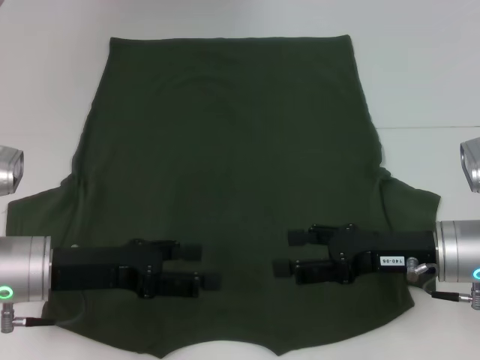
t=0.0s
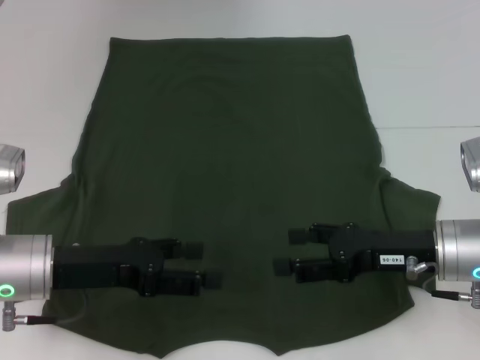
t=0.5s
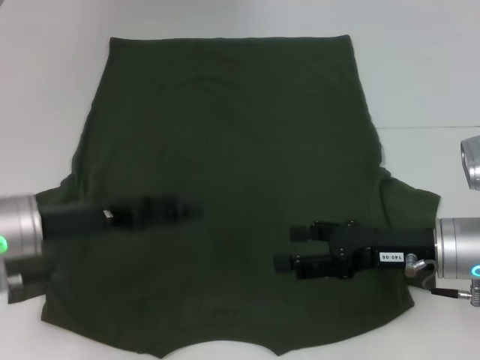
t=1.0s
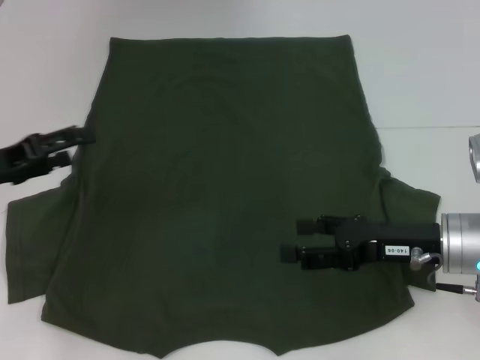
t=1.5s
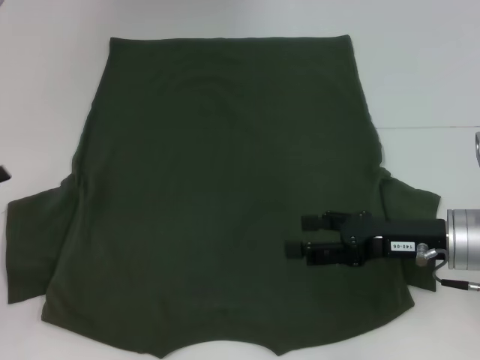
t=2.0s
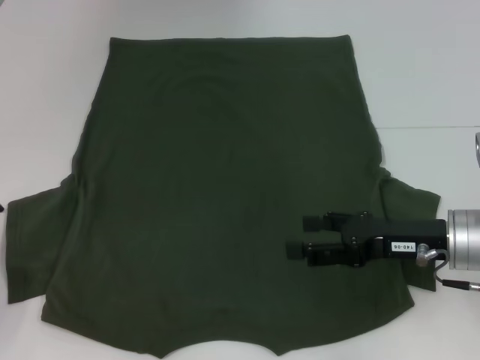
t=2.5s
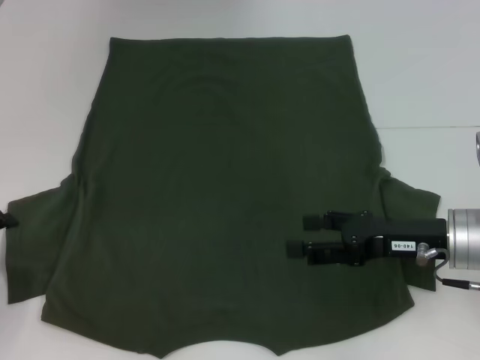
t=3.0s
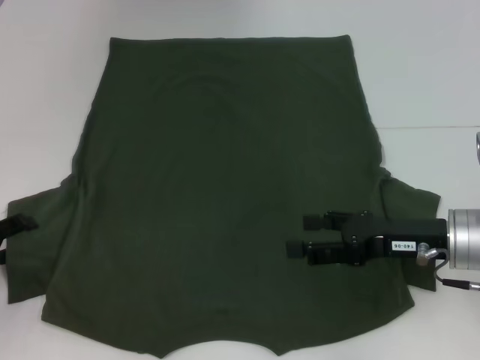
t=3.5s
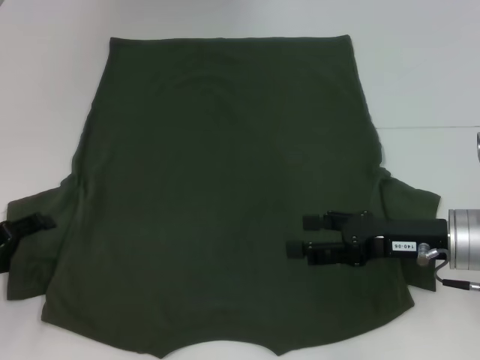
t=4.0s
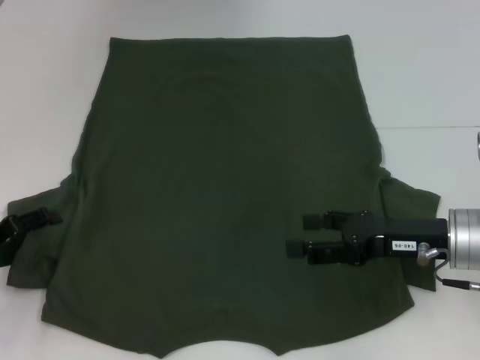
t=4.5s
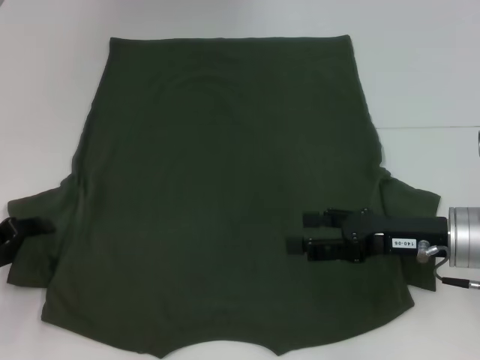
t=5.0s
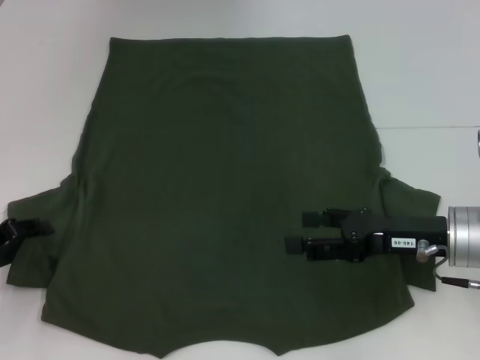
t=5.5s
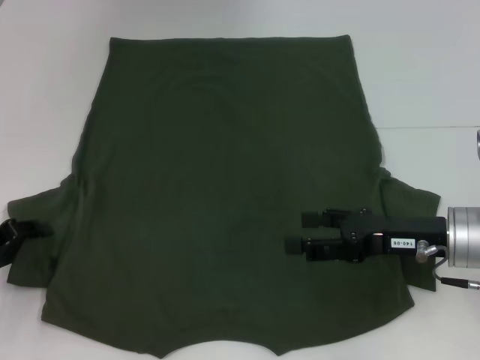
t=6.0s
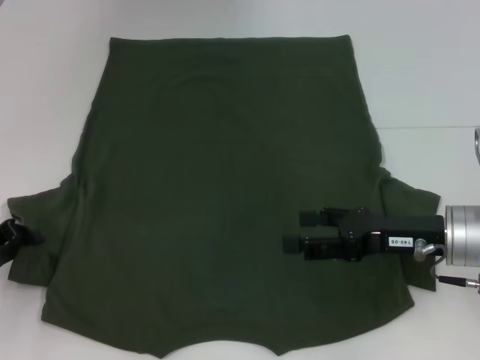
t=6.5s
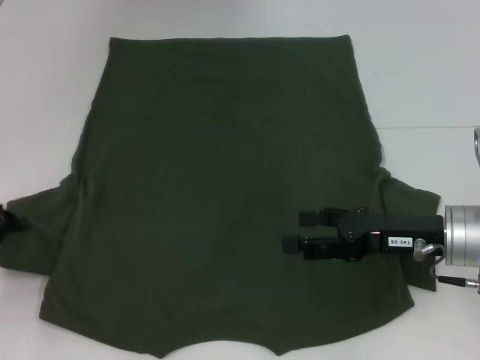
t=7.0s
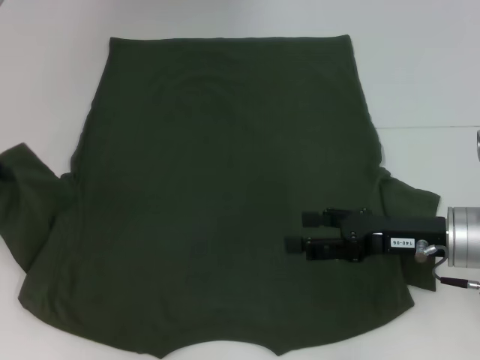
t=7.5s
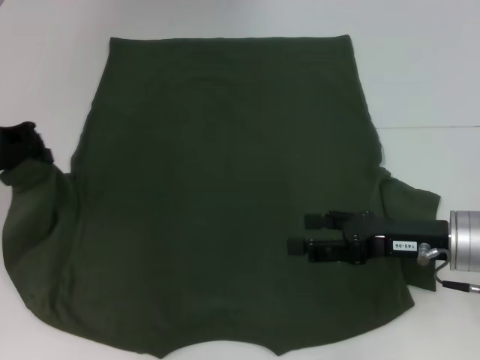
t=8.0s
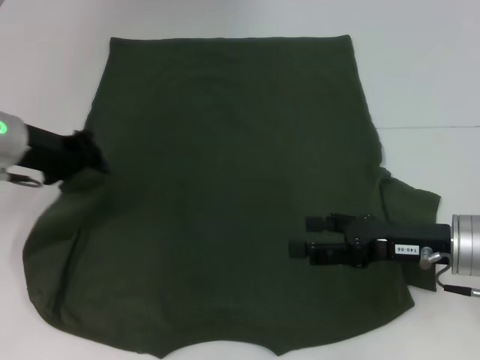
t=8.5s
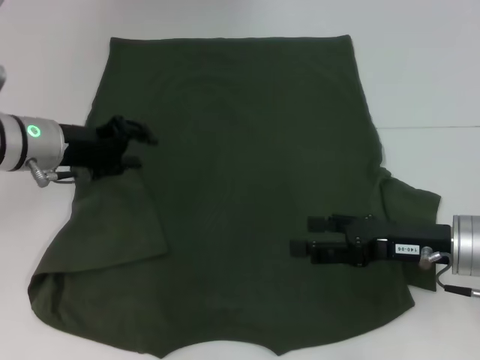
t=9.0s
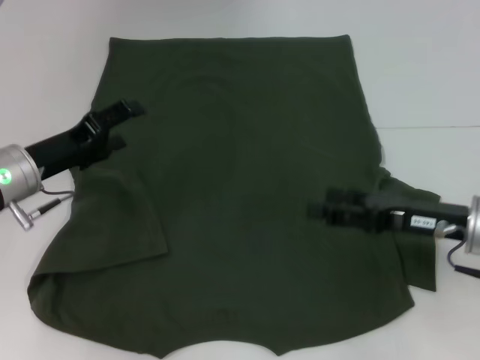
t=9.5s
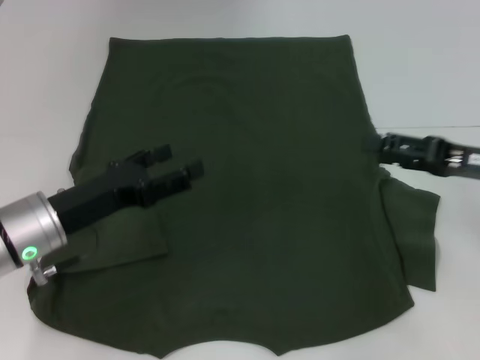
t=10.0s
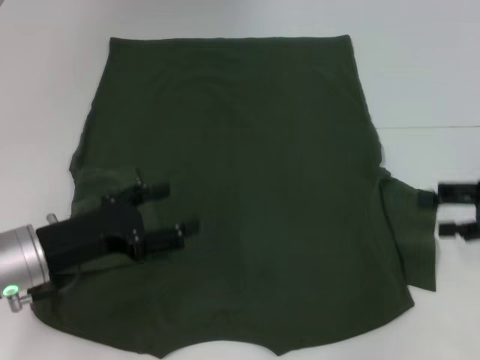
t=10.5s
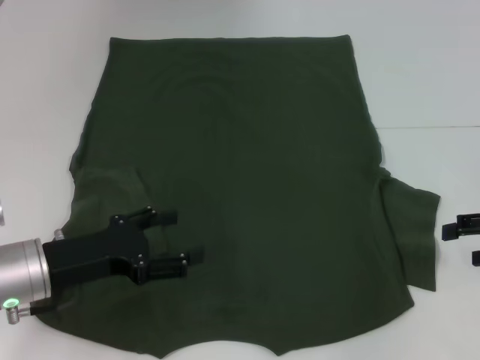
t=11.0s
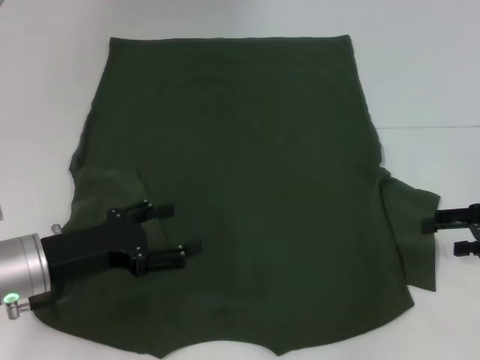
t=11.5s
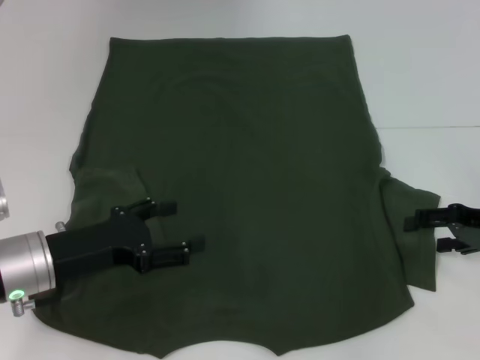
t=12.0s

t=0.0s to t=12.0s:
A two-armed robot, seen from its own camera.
Step, t=0.0s to t=9.0s: Fold the bottom left sleeve with your left hand.
t=0.0s to t=2.0s: The left gripper moves to the left, approximately 15 cm.
t=2.0s to t=4.0s: The left gripper shifts by about 5 cm.
t=6.0s to t=8.0s: The left gripper travels upward and forward by approximately 15 cm, and closes its fingers.
t=8.0s to t=10.0s: The right gripper moves to the right, approximately 5 cm. Meanwhile the left gripper shifts some 15 cm to the right, downward and backward, and opens.
t=10.0s to t=12.0s: The right gripper moves some 5 cm.

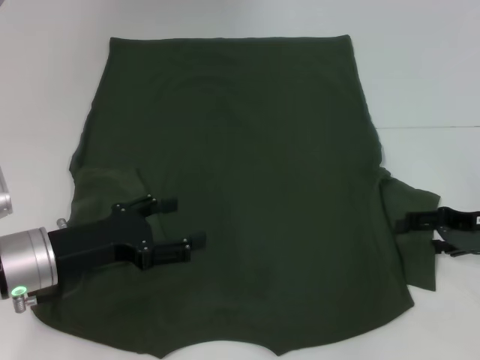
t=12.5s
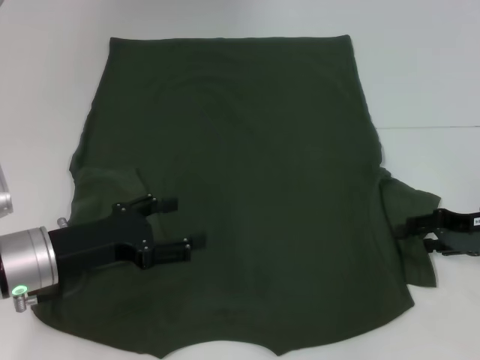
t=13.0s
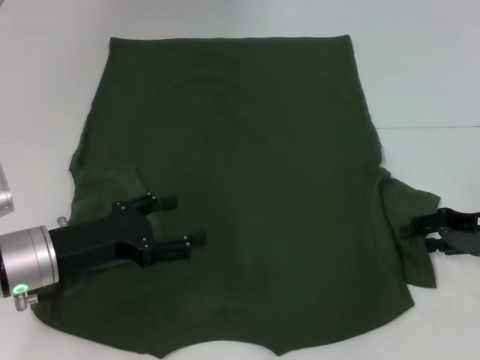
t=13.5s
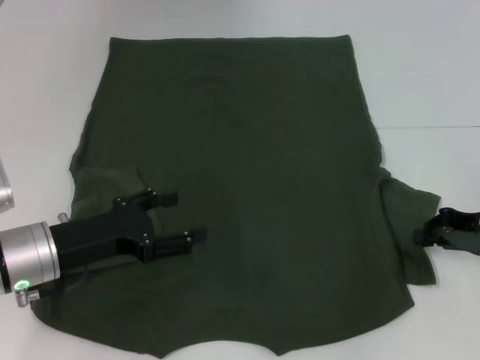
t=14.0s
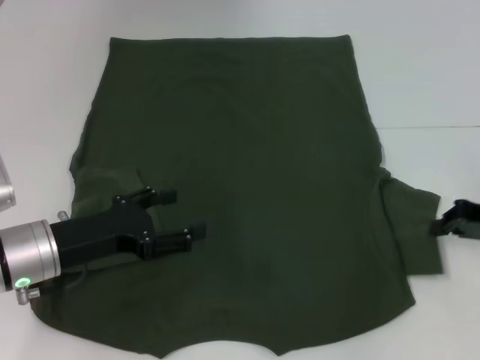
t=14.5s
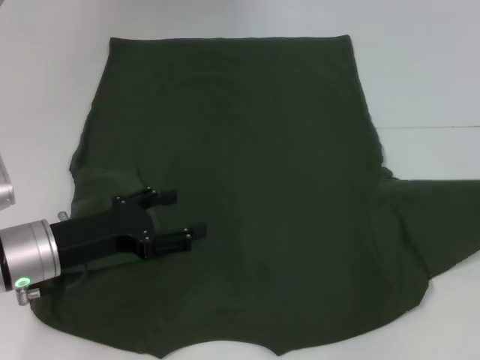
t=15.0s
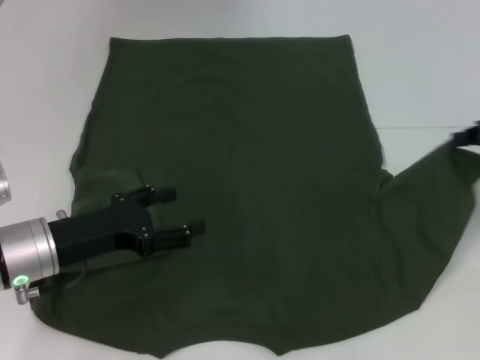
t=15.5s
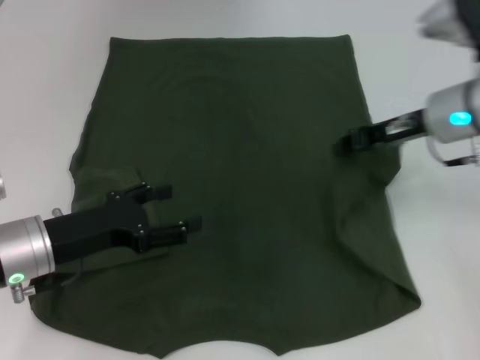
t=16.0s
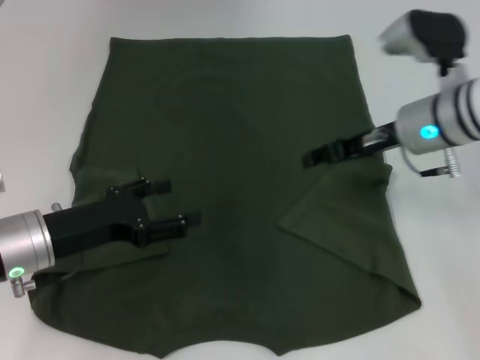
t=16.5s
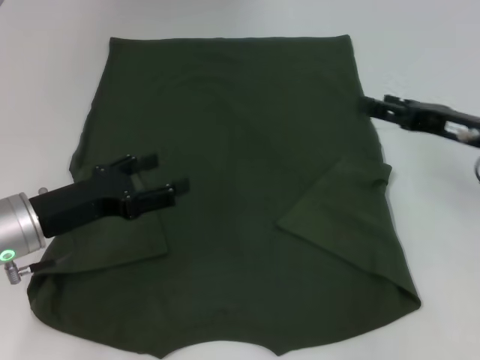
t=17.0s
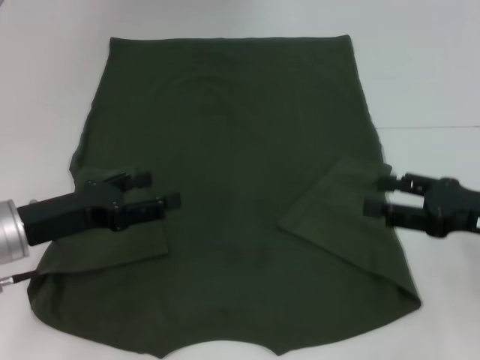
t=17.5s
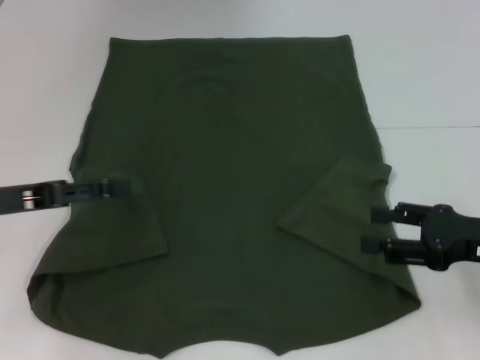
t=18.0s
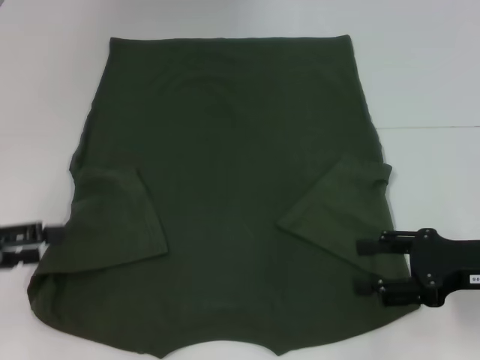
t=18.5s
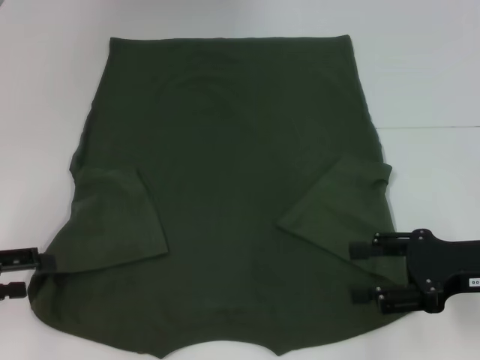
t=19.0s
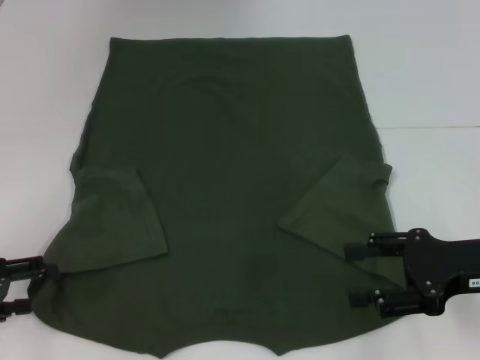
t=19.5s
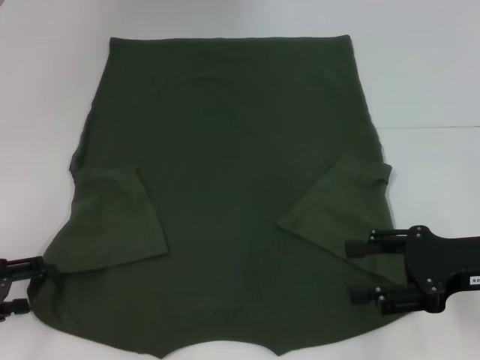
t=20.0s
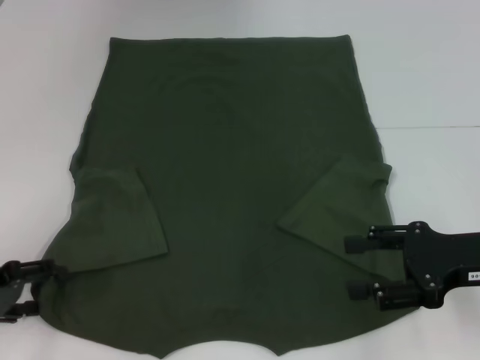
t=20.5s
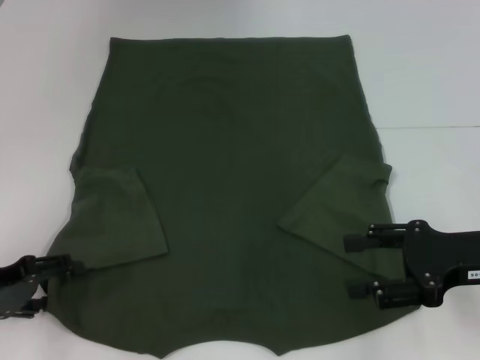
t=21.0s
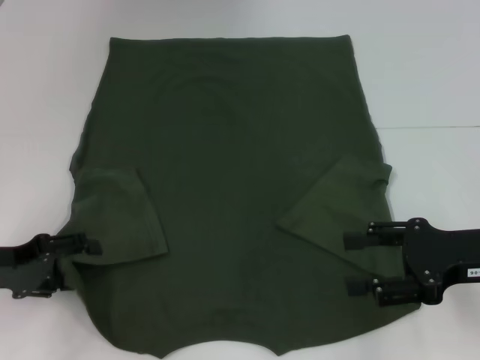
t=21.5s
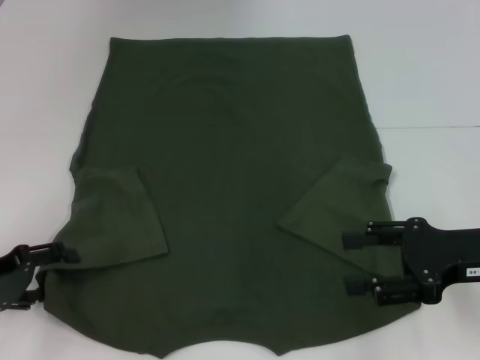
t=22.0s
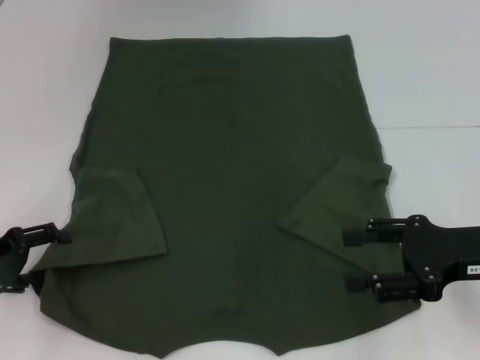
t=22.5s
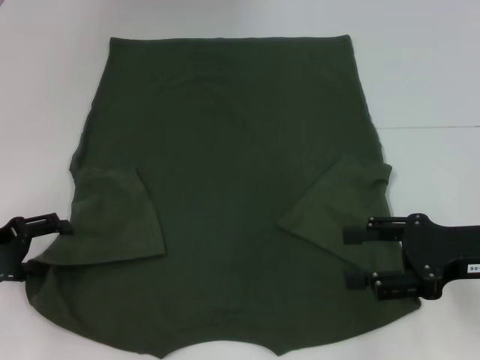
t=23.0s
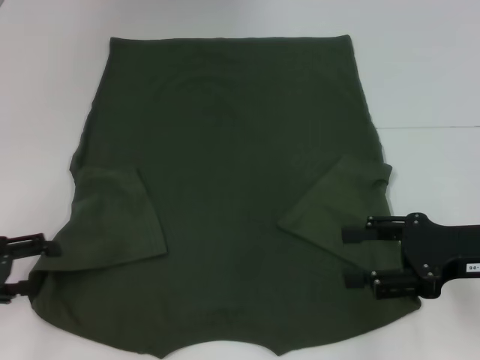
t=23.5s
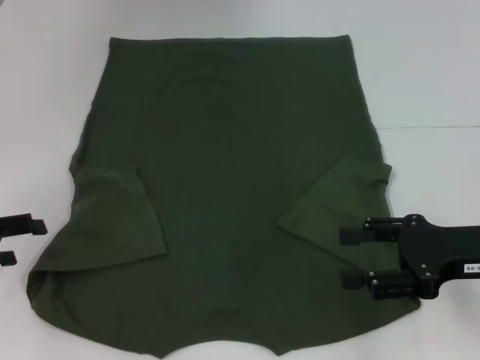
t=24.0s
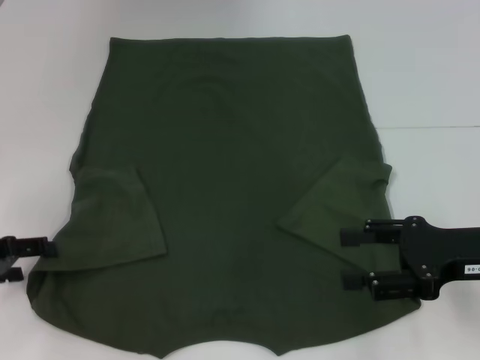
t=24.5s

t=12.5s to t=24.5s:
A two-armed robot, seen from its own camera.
Step, t=12.5s to t=16.0s: Fold the bottom right sleeve with your right hand.
t=12.5s to t=14.5s: The right gripper closes.
t=14.5s to t=16.5s: The right gripper shifts about 15 cm to the left and forward, and opens.
t=16.5s to t=18.5s: The left gripper is displaced to the left and upward by roughly 15 cm, while the right gripper moves backward and to the right, approximately 15 cm, and opens.
t=18.5s to t=20.5s: The left gripper moves downward, approximately 5 cm.
t=20.5s to t=22.5s: There are only small adjustments of the grippers.

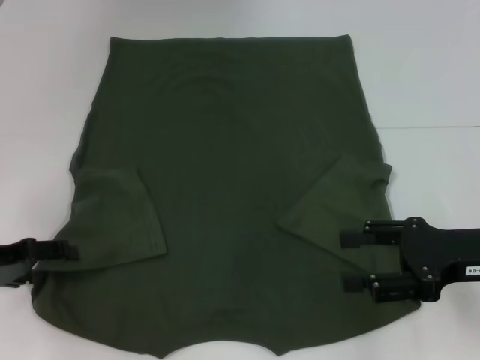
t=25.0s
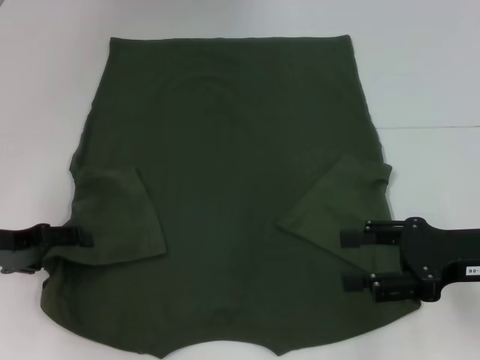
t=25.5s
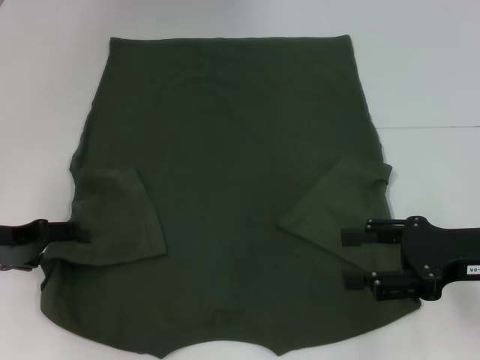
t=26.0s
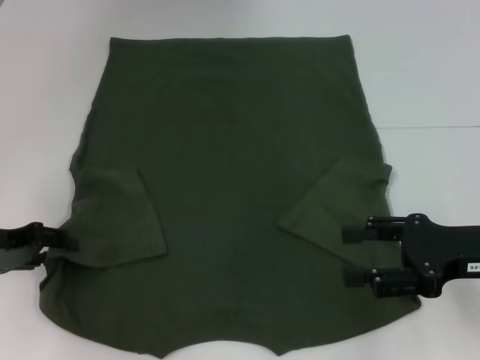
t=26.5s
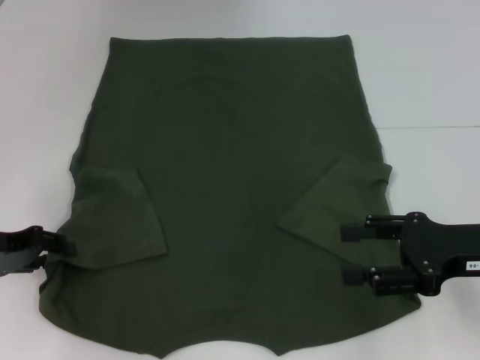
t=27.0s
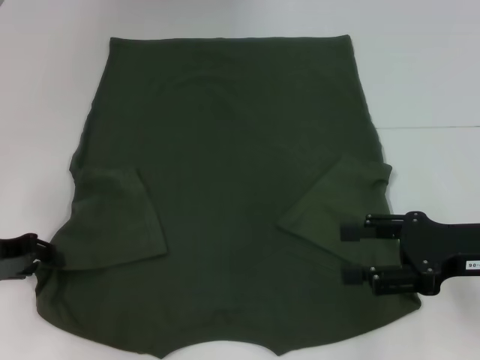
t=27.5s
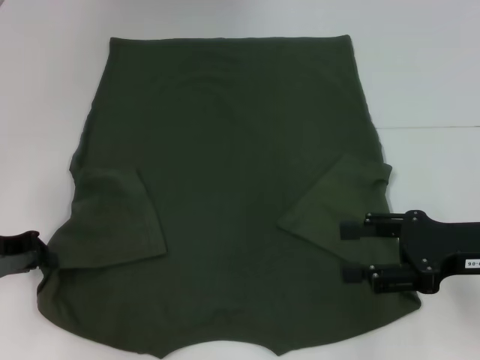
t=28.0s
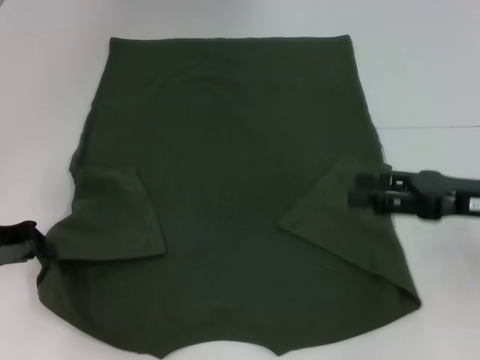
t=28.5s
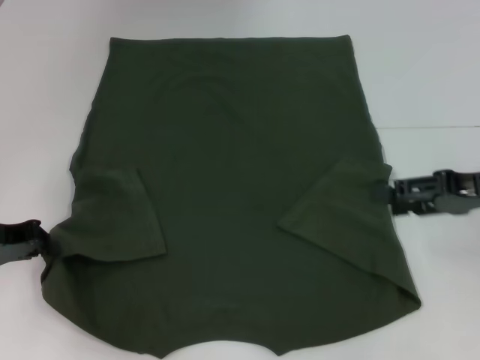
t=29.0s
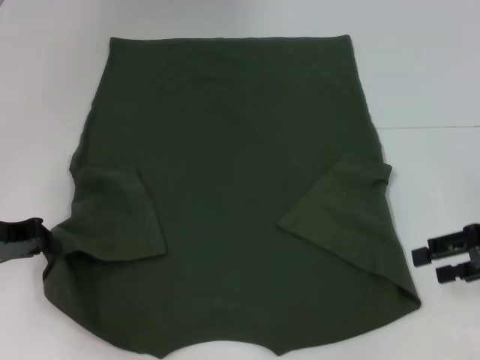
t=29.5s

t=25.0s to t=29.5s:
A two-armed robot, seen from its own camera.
Step, t=25.0s to t=27.5s: Grab the bottom left corner with your left hand.
t=25.0s to t=27.0s: The left gripper closes.
t=27.0s to t=29.5s: The right gripper heads to the right, covering about 5 cm, while the left gripper closes up.
